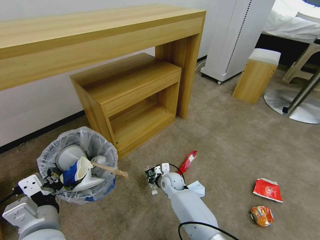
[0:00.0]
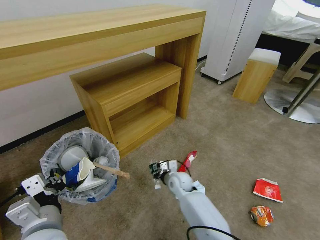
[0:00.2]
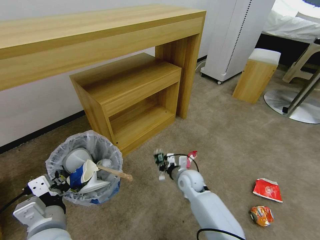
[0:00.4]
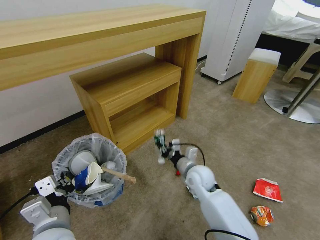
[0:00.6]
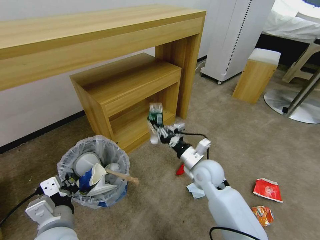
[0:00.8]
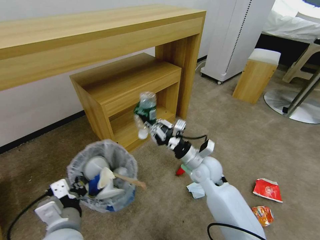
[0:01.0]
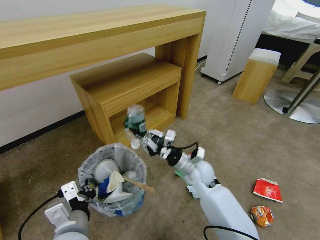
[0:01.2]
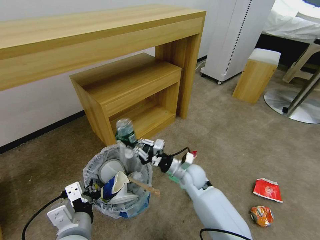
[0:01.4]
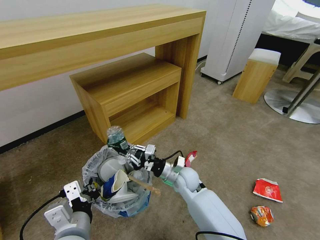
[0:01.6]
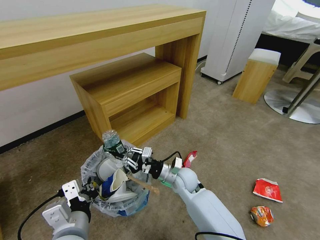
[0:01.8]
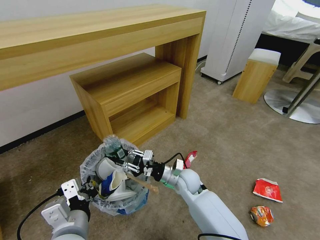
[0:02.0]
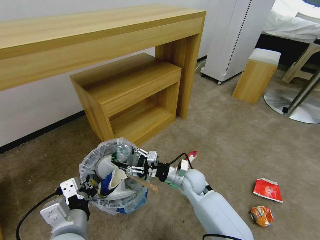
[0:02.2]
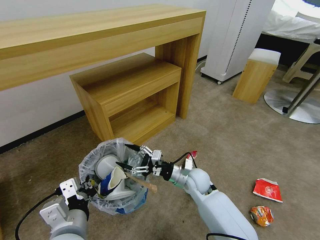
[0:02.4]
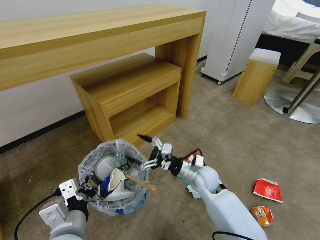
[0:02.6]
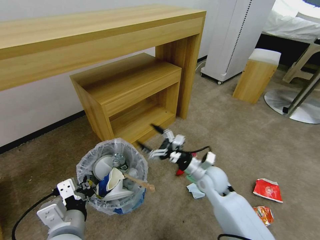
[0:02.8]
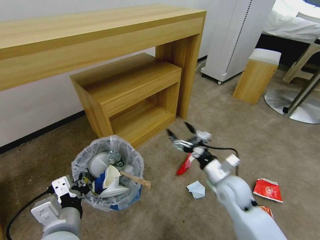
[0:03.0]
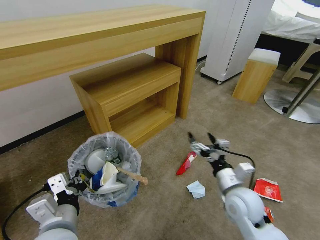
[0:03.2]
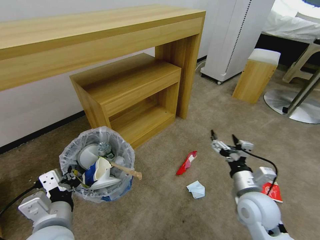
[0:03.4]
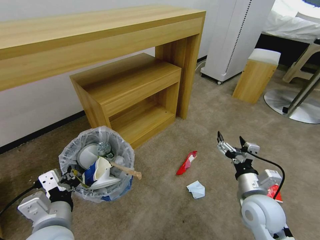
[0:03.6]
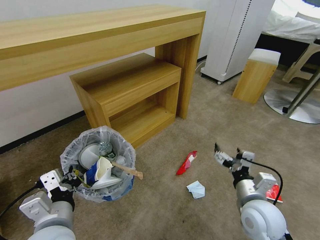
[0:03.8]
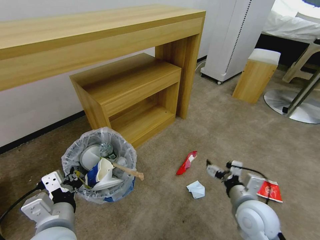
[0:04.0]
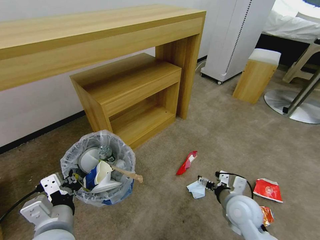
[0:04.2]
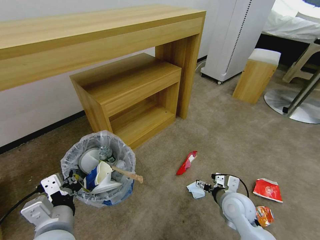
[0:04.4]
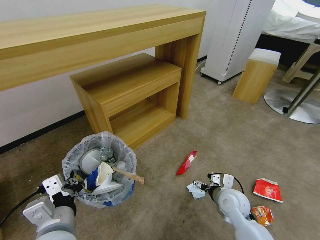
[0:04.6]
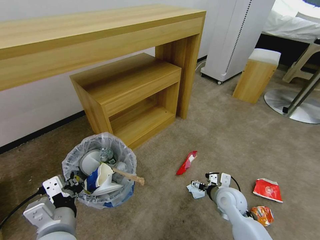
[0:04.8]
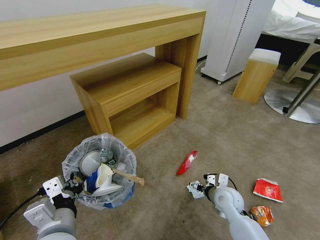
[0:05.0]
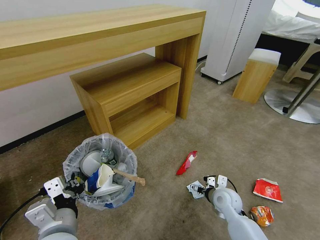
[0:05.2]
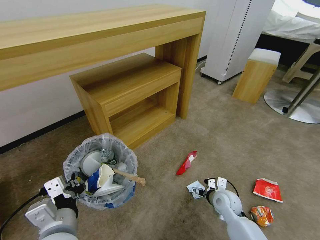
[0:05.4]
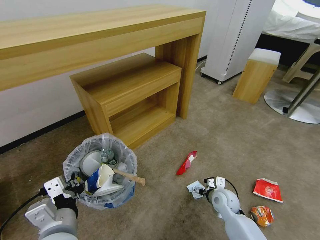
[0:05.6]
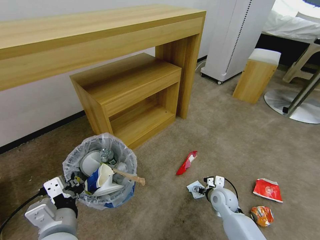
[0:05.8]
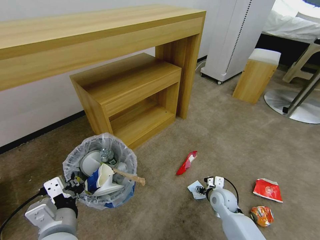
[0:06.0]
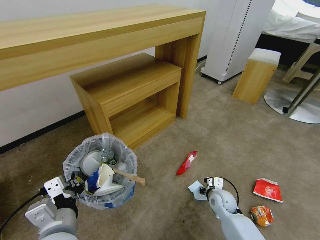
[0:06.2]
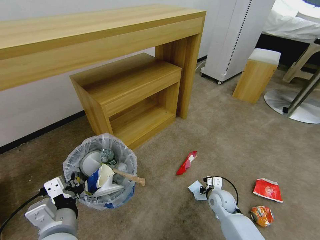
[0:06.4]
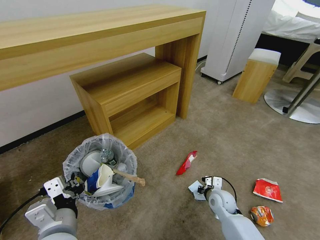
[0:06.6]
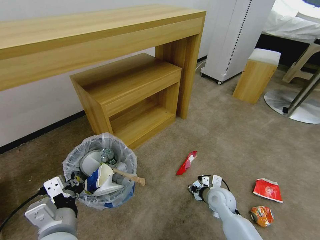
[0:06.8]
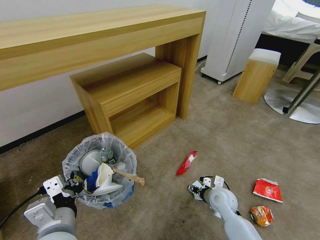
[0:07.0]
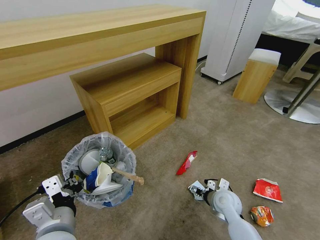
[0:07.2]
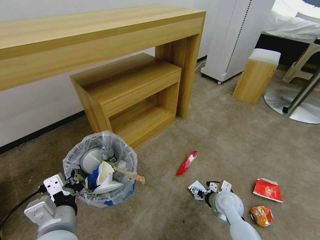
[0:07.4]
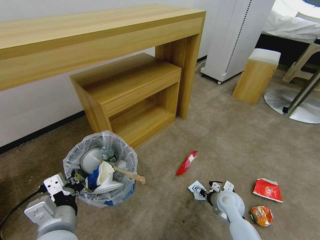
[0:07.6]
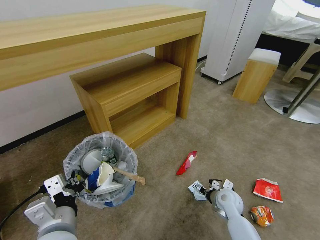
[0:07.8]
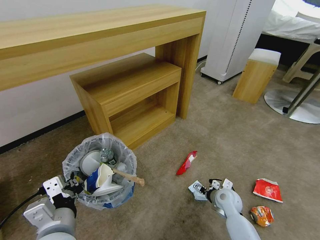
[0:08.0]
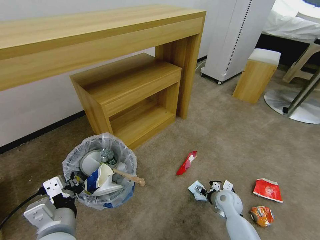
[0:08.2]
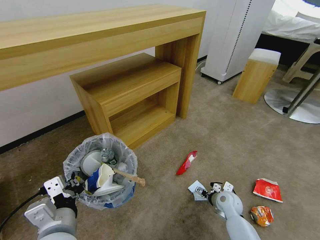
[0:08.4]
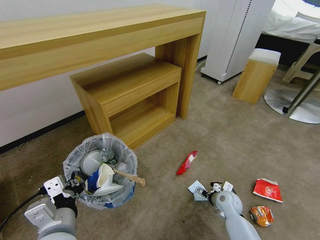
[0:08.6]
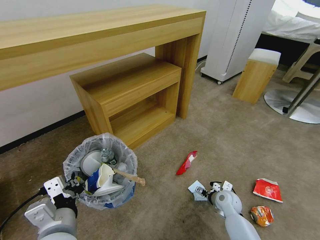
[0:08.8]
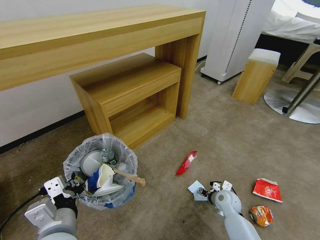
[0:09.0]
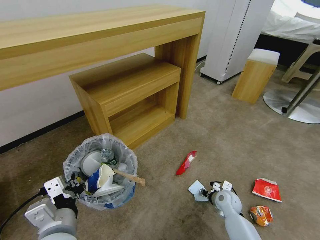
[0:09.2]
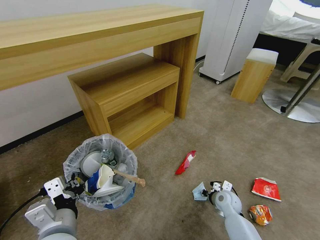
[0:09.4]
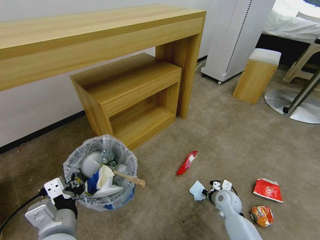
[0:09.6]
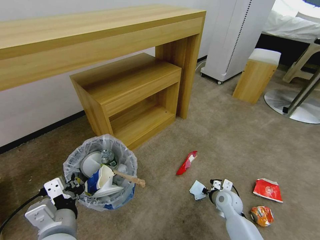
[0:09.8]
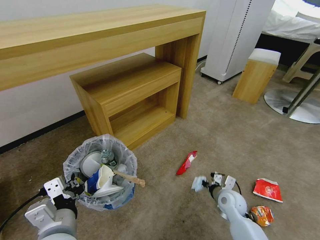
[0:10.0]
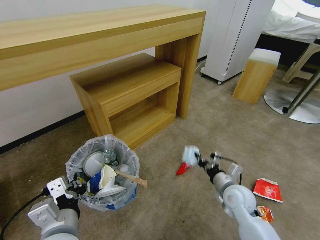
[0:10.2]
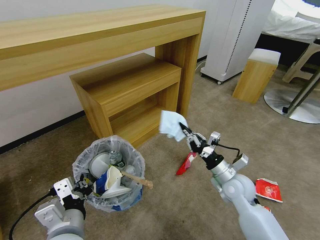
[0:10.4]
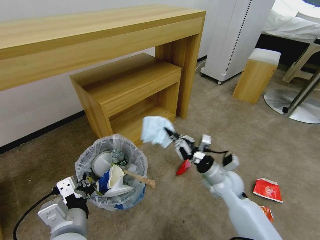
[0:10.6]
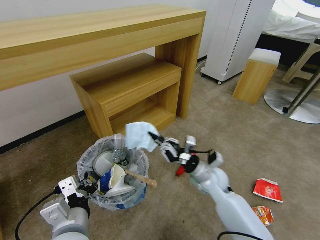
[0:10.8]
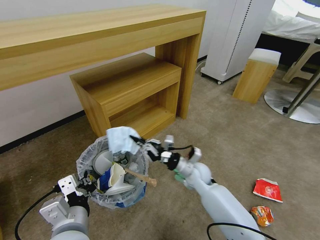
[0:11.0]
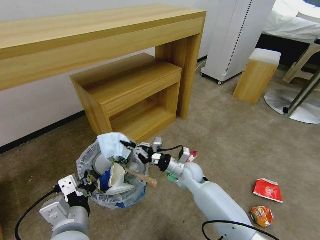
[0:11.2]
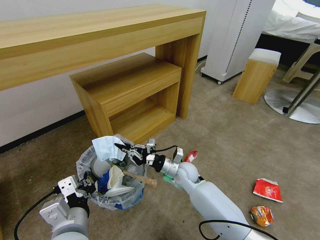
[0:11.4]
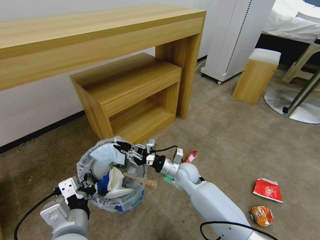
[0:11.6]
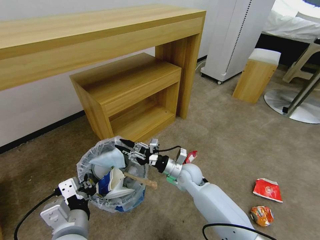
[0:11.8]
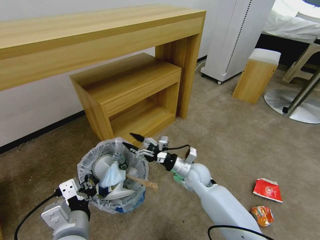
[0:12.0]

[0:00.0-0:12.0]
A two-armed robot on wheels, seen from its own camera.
Task of the whole recording: Pick up the trash bin and place the garbage on the floor into it.
0:00.0 to 0:01.6: The right gripper travels upward by roughly 10 cm. The left gripper moves to the right, about 5 cm.
0:01.6 to 0:03.0: The right gripper travels to the right, upward and backward by about 15 cm, and opens.
0:03.0 to 0:04.4: The right gripper moves approximately 10 cm.
0:04.4 to 0:06.0: The right gripper moves downward and forward, about 15 cm, and closes.
0:06.0 to 0:07.6: The right gripper opens.
0:07.6 to 0:09.0: There are only small adjustments of the grippers.
0:09.0 to 0:10.4: The right gripper goes about 15 cm upward, and closes up.
0:10.4 to 0:12.0: The right gripper is displaced to the left and forward by roughly 15 cm, and opens.

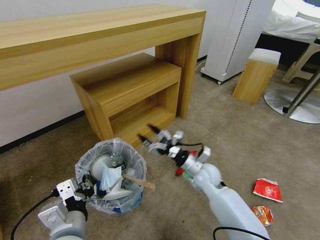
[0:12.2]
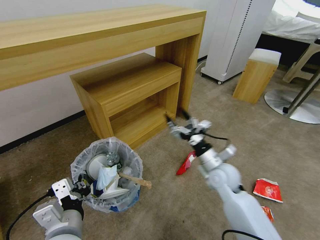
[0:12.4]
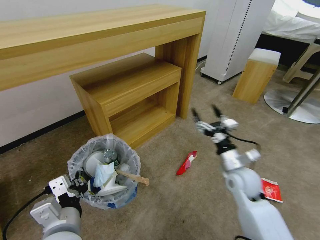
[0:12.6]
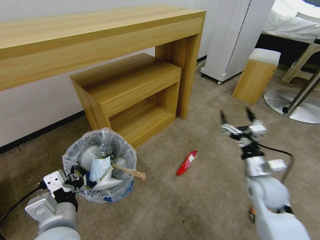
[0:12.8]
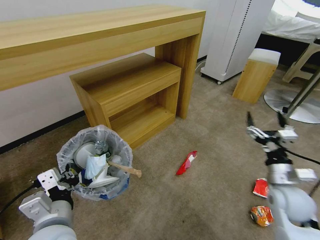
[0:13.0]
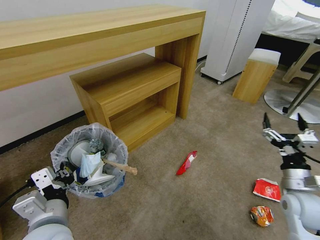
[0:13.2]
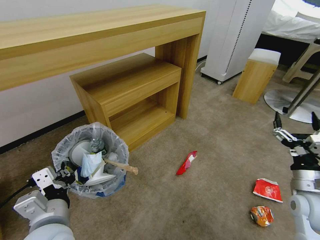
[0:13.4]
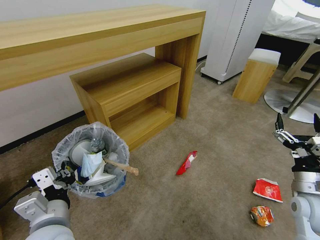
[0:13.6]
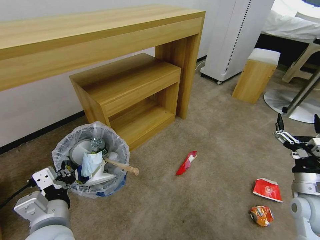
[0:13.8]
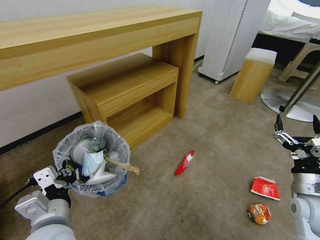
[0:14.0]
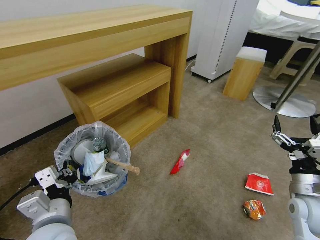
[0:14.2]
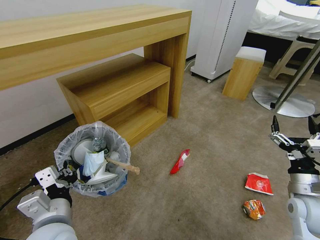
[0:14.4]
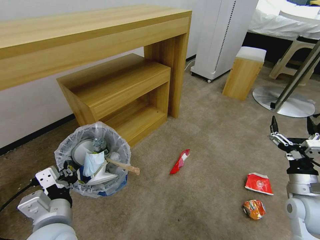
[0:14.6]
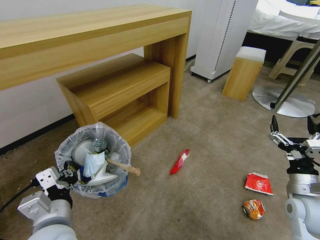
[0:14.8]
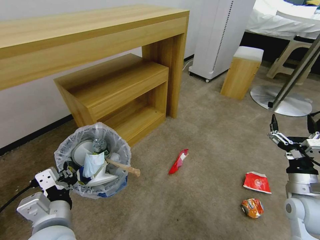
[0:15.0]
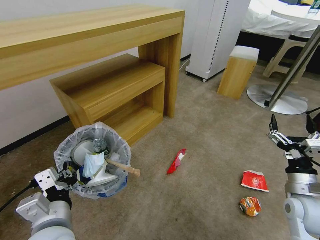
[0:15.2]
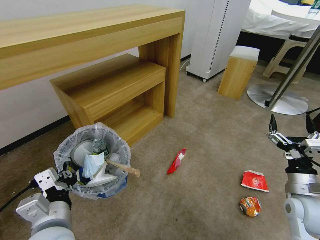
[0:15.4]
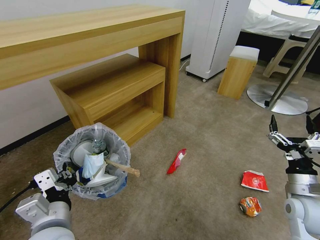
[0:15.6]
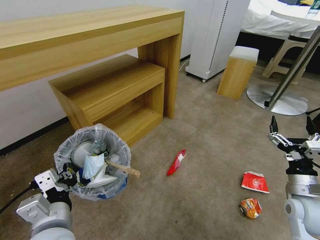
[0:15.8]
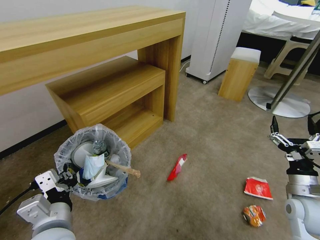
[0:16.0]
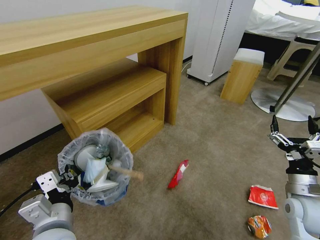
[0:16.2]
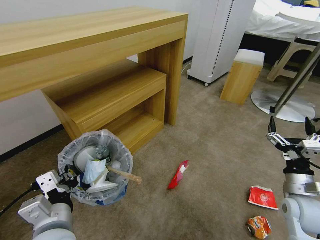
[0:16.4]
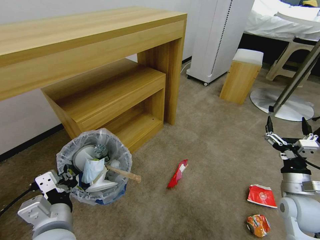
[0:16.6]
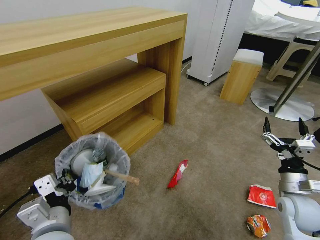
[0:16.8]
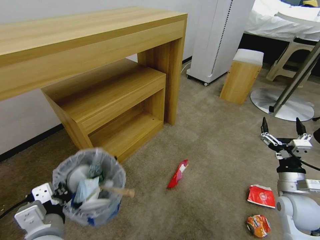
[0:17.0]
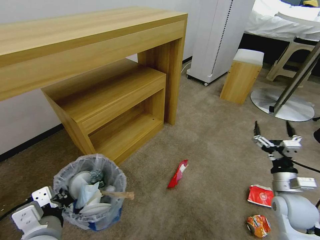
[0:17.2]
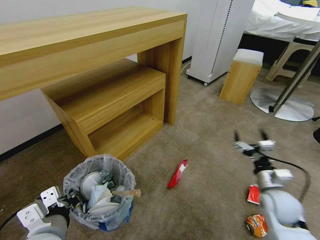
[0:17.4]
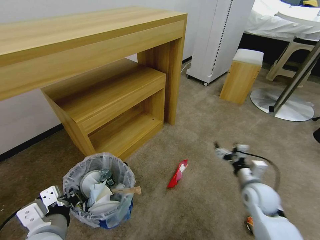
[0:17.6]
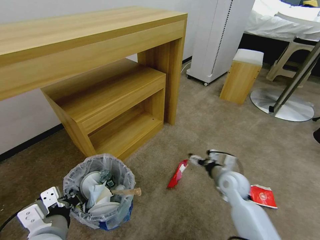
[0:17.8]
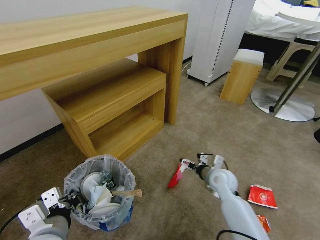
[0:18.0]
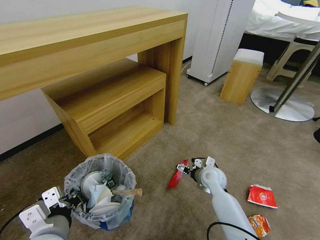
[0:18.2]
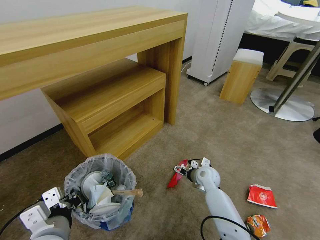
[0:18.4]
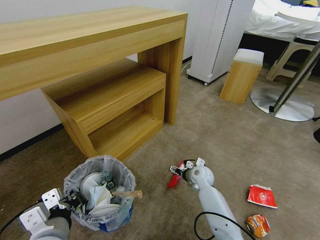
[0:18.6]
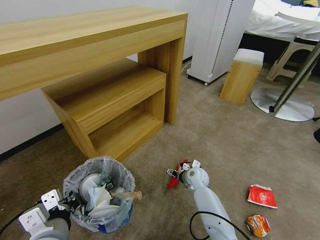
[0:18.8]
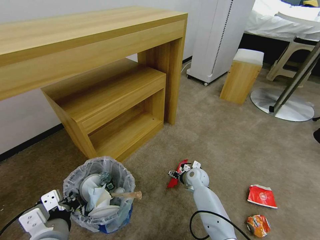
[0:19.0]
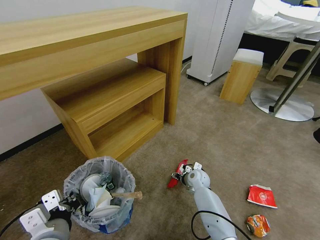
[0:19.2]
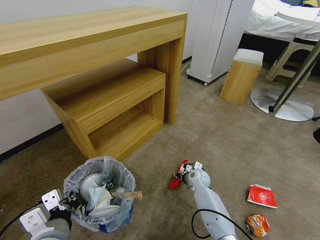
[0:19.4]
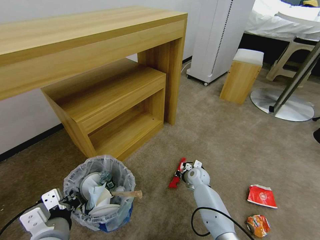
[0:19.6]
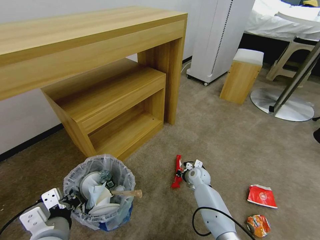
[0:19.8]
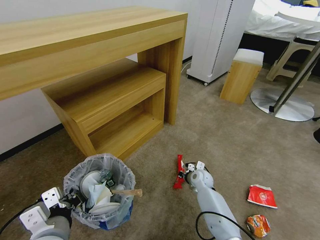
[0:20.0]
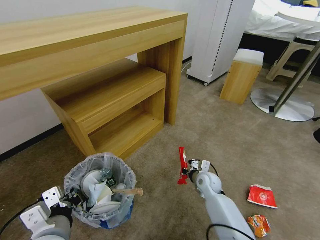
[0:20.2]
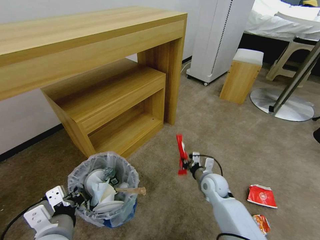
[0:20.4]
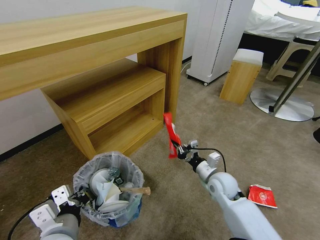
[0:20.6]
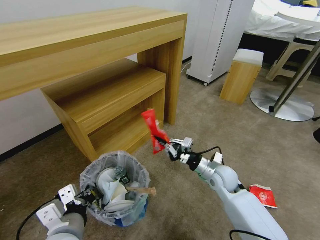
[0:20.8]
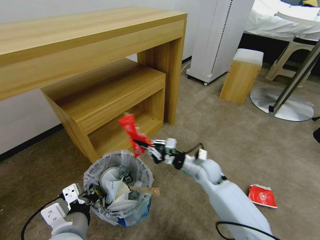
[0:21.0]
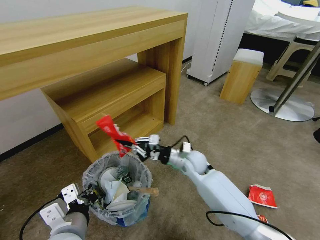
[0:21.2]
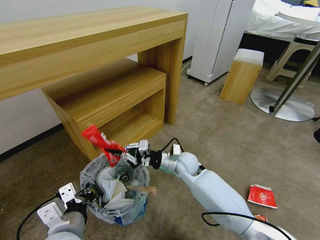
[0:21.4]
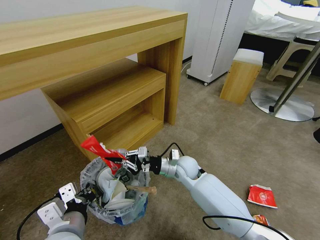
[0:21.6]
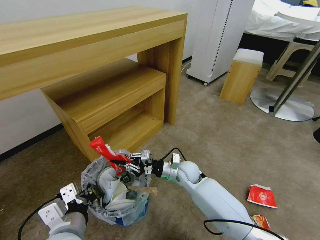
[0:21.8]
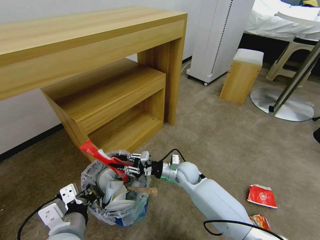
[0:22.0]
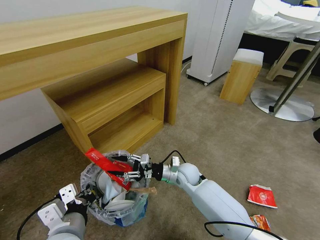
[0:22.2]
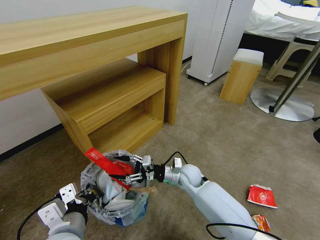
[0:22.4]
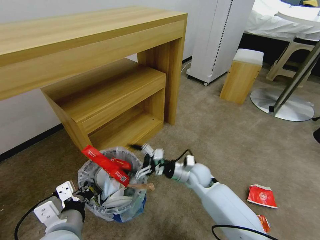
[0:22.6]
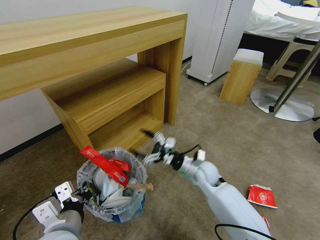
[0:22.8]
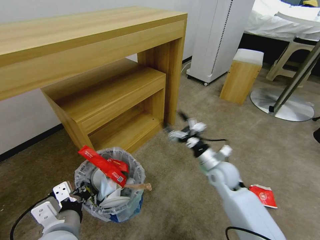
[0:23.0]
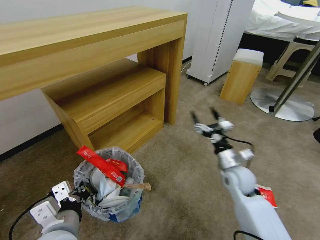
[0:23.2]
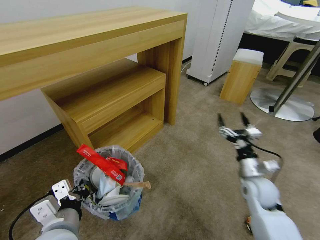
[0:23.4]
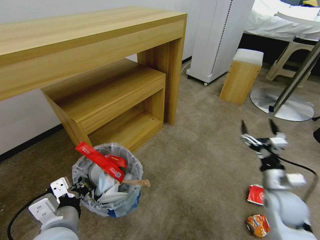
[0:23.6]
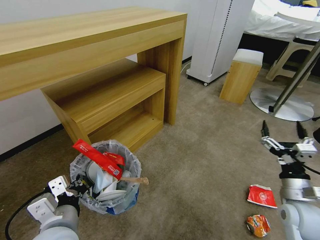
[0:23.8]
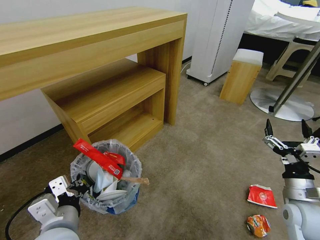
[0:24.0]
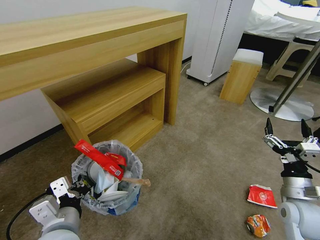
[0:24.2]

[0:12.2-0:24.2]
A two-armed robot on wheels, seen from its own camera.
Task of the whole recording: Pick up the trash bin and place the garbage on the floor into it.
0:12.2 to 0:13.8: The right gripper is displaced to the right and backward by roughly 30 cm.
0:16.6 to 0:18.2: The right gripper heads to the left, forward and downward, covering roughly 25 cm.
0:18.2 to 0:19.8: The right gripper moves downward, some 10 cm, and closes.
0:19.8 to 0:21.2: The right gripper goes approximately 15 cm upward.
0:21.2 to 0:22.6: The right gripper ends up some 5 cm from where it was, and opens its fingers.
0:22.6 to 0:24.2: The right gripper is displaced to the right and backward by some 30 cm.
